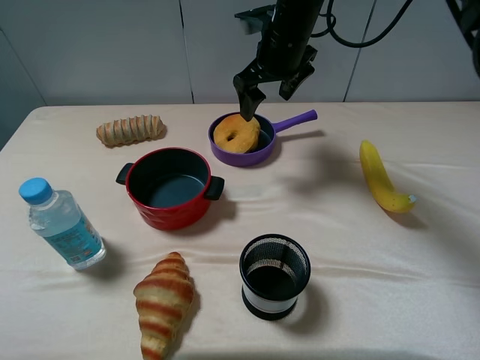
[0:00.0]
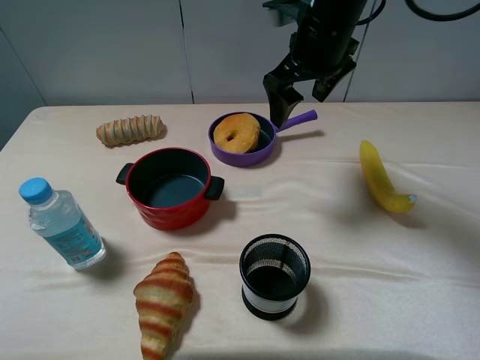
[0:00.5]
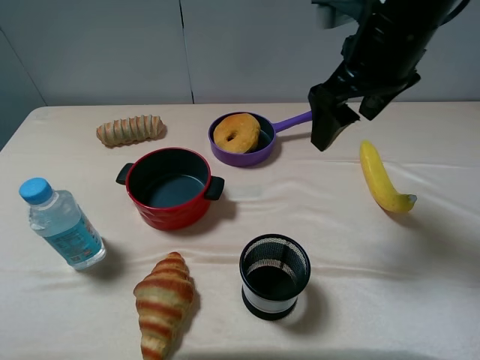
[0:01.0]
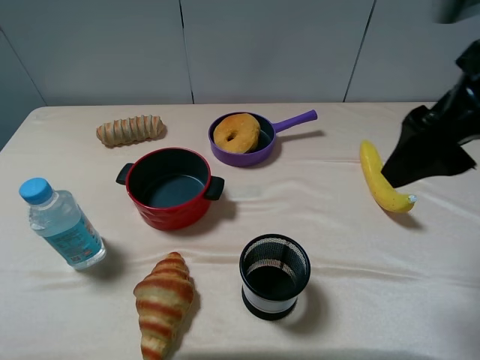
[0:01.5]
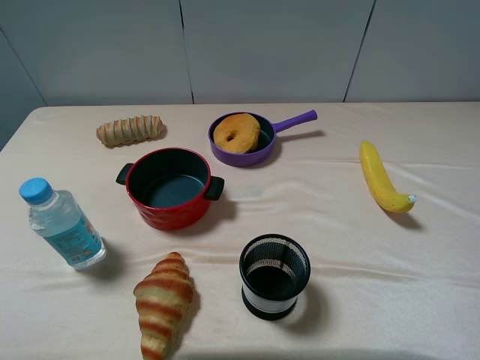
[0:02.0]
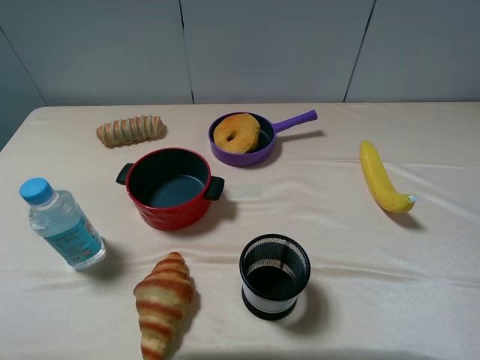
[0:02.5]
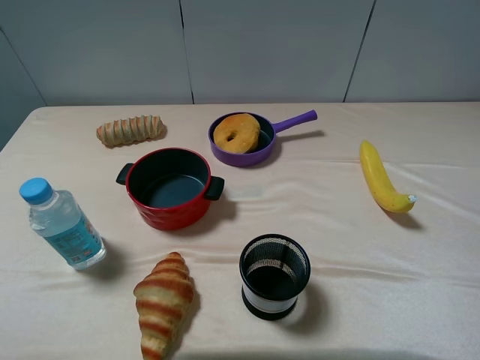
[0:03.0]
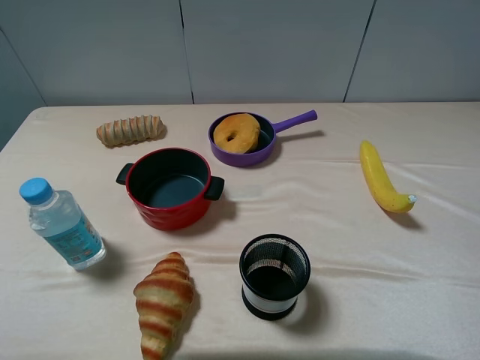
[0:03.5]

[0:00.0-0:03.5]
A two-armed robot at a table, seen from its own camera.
Task of the whole recording: pick up an item with a gripper and place it in a random container on the table.
0:00.0 to 0:02.0: The right gripper goes some 40 cm backward and to the right.
